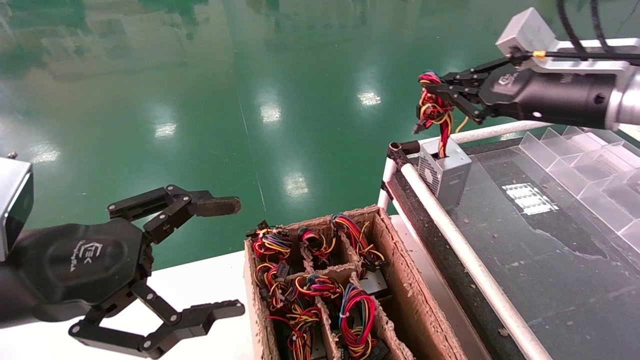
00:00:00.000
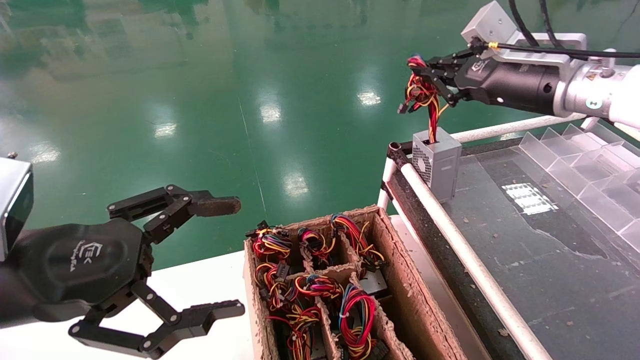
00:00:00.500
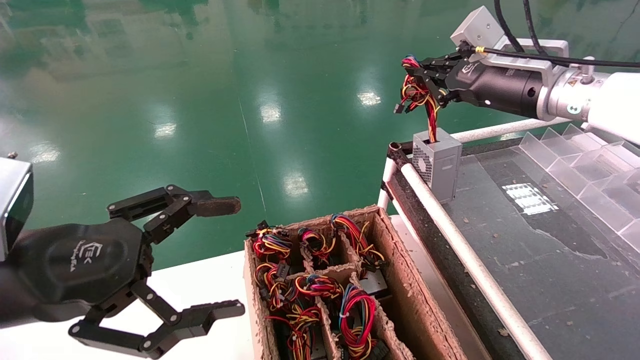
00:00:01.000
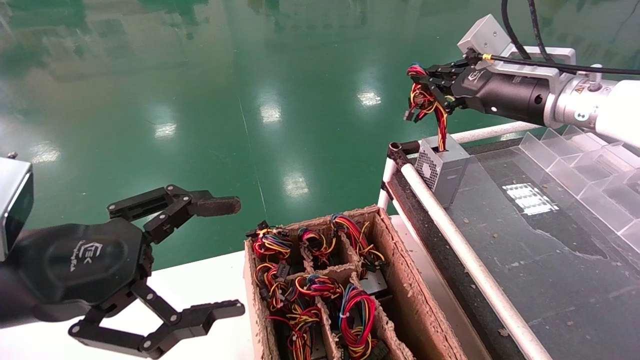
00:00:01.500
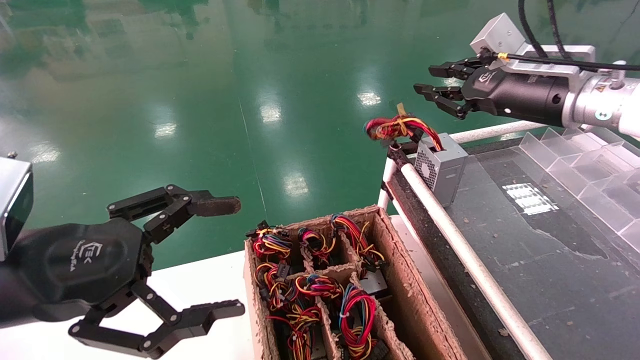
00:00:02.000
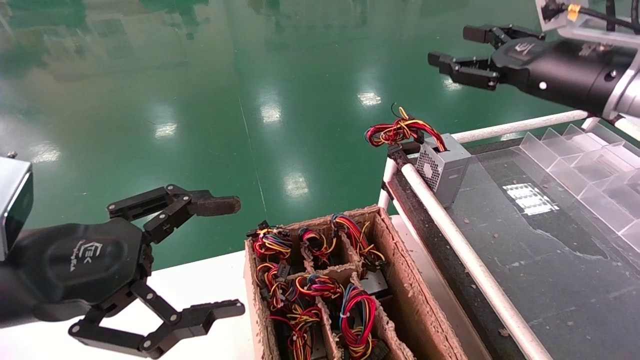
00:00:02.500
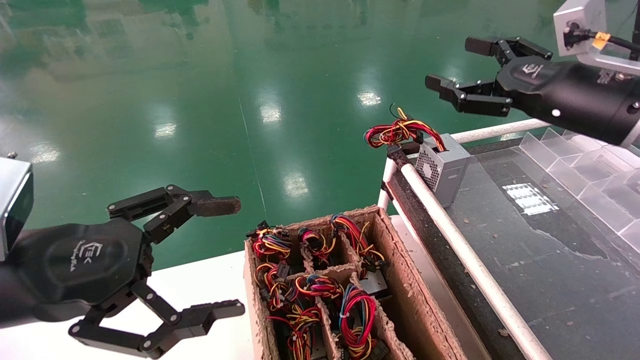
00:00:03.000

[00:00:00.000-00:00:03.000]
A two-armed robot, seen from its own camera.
00:00:00.000 to 00:00:01.500: The right gripper moves roughly 5 cm.
00:00:01.500 to 00:00:03.000: The right gripper travels backward by roughly 5 cm, and opens.
